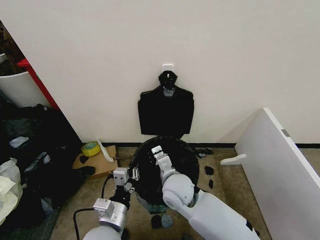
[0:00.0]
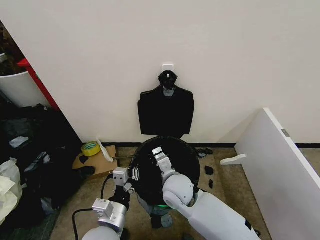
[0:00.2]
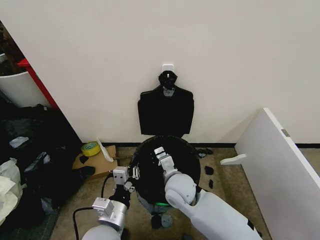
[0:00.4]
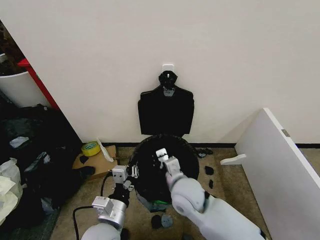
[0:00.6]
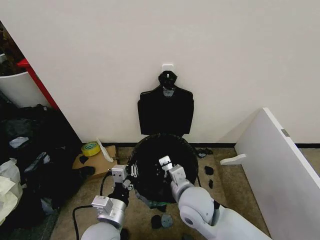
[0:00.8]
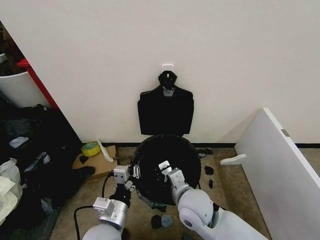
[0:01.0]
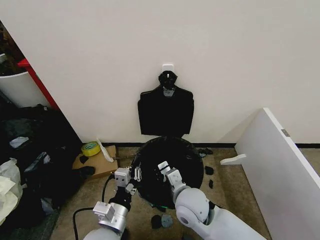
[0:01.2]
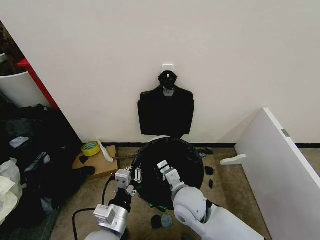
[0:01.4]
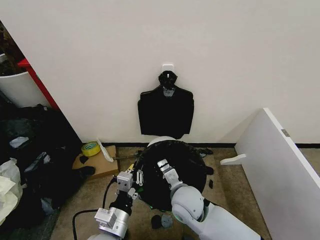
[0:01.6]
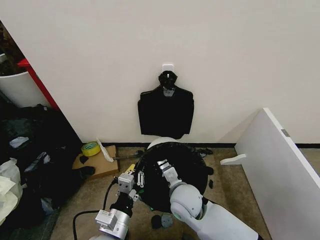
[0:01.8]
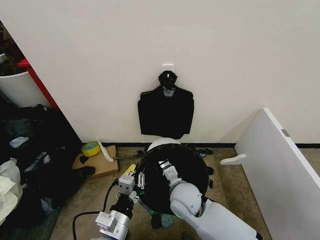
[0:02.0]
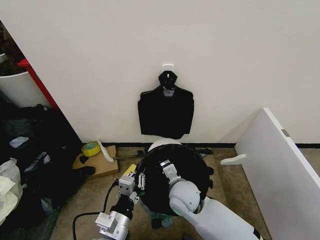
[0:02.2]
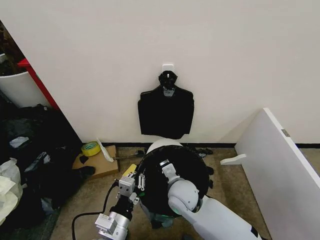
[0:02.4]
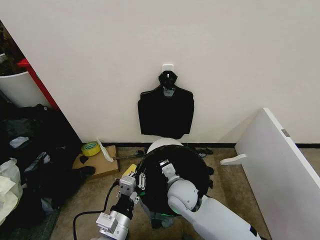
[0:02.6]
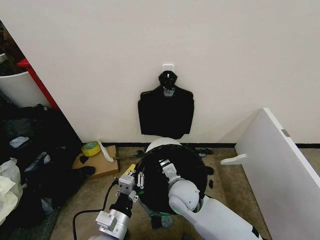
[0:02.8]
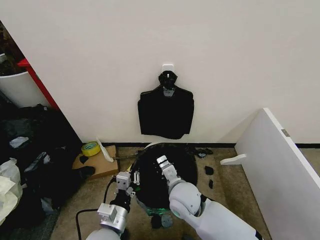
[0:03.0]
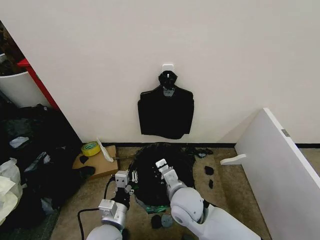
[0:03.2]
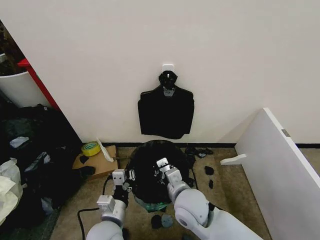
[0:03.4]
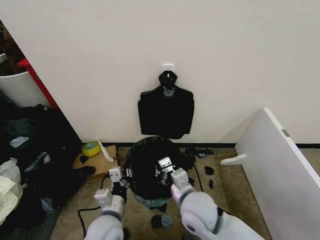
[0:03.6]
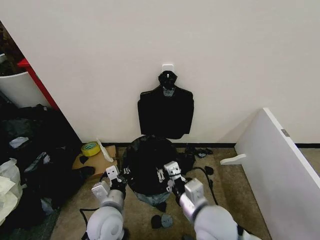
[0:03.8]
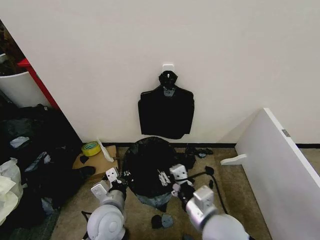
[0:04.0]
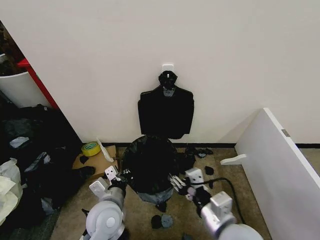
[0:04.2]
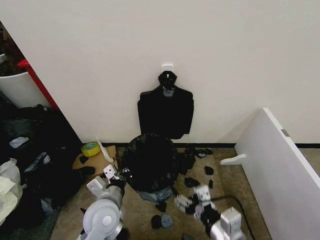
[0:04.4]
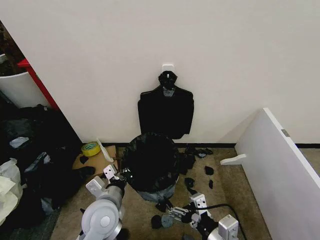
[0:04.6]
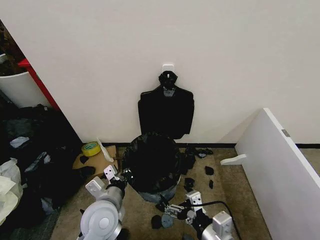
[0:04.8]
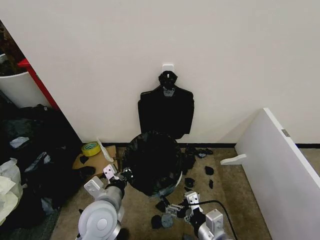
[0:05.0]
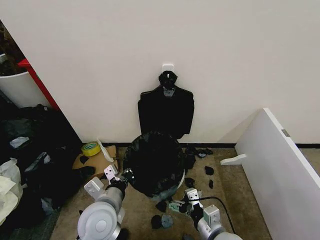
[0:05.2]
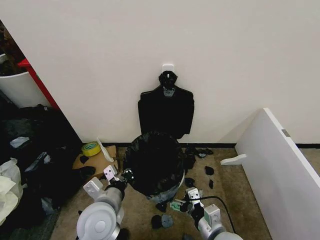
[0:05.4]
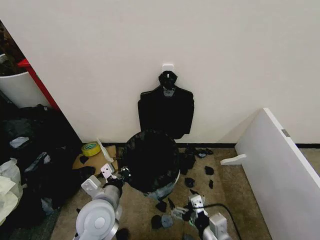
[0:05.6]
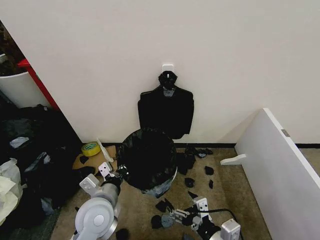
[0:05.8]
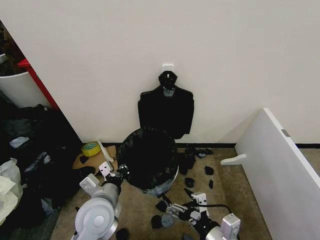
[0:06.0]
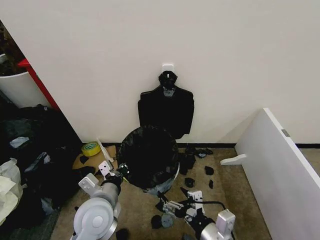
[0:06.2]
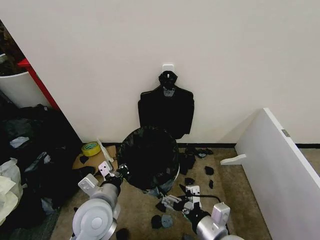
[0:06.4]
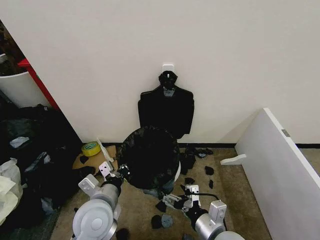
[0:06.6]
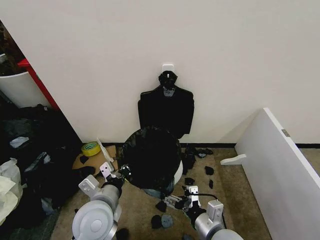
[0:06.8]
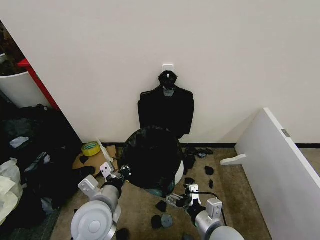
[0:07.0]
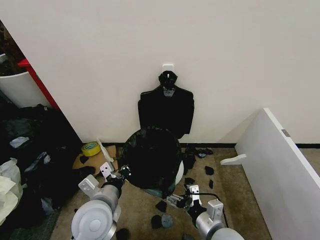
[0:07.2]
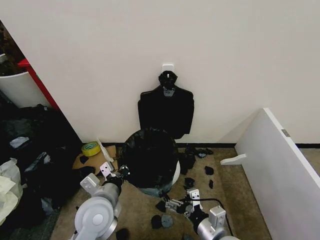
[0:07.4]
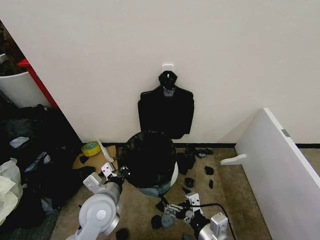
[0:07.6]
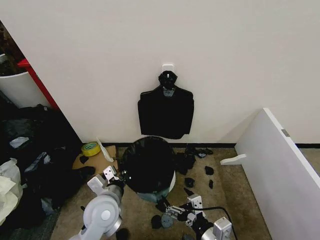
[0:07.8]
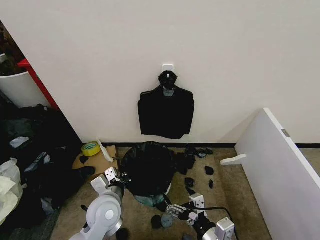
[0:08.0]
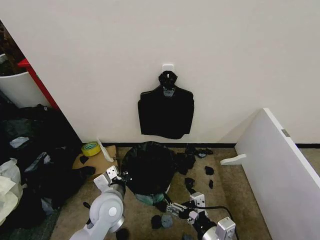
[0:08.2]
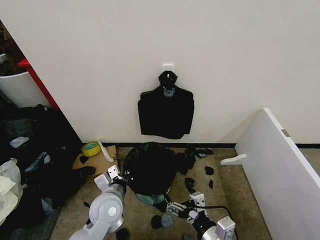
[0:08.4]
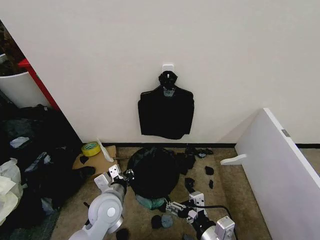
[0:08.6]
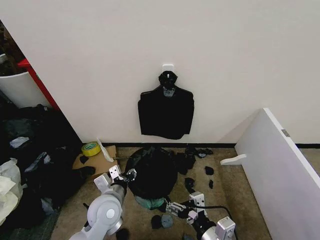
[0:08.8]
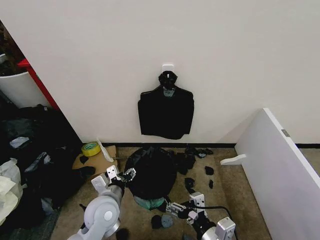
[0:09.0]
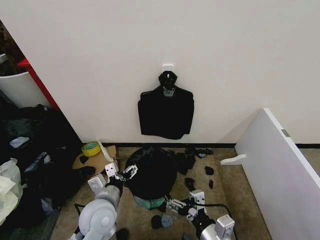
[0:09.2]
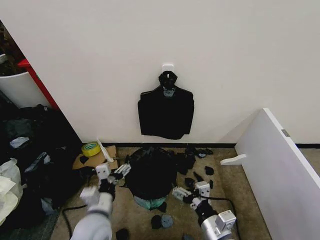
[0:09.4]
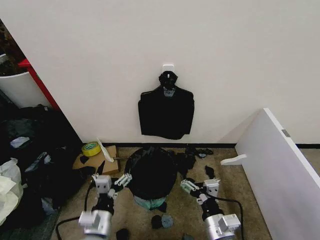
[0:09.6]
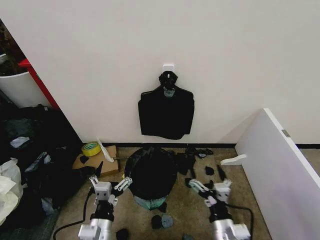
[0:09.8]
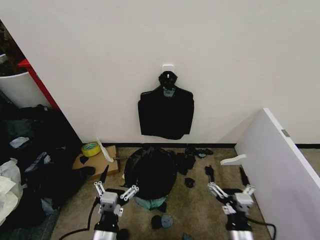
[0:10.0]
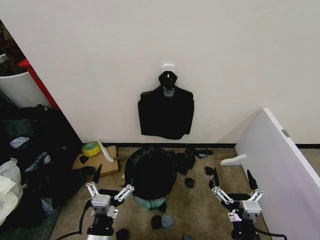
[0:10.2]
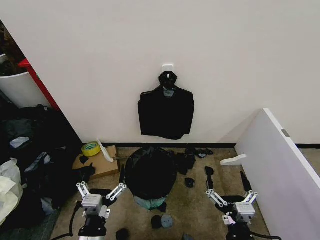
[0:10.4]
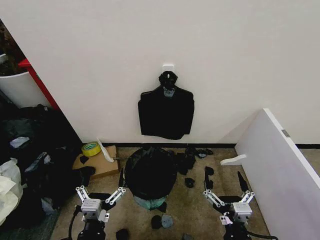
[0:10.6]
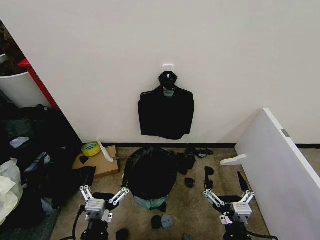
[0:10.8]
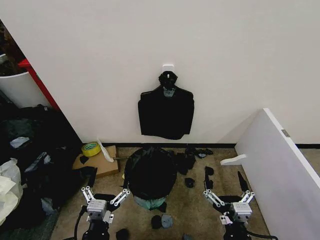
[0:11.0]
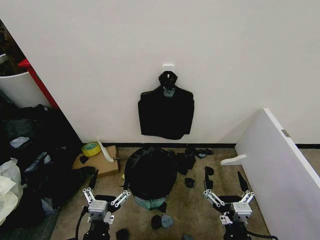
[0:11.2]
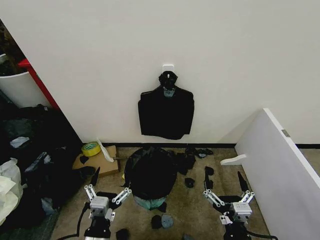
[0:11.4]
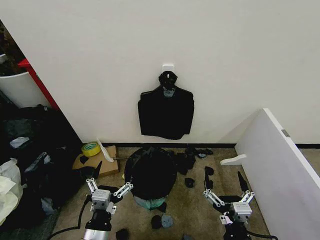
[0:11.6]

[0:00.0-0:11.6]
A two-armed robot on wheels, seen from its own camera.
Task of the whole recording: Place the garbage bag over the trash bin.
0:00.0 to 0:01.4: The right gripper moves some 5 cm.
0:01.4 to 0:02.8: There are only small adjustments of the grippers.
0:02.8 to 0:04.4: The right gripper travels backward and to the right by about 20 cm, and opens its fingers, while the left gripper moves forward, roughly 10 cm.
0:04.4 to 0:05.8: The right gripper moves downward, about 5 cm.
0:05.8 to 0:07.2: The right gripper goes roughly 5 cm forward.
0:07.2 to 0:08.8: The right gripper shifts by roughly 5 cm. The left gripper is displaced downward by approximately 5 cm, and opens its fingers.
0:08.8 to 0:10.2: The left gripper moves backward, about 15 cm, and opens up, while the right gripper changes place by roughly 5 cm.
0:10.2 to 0:11.6: There are only small adjustments of the grippers.

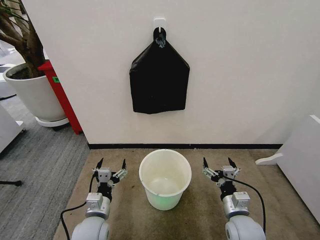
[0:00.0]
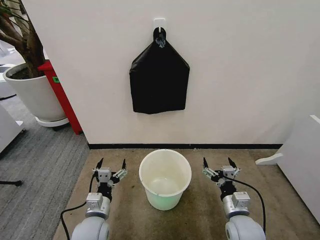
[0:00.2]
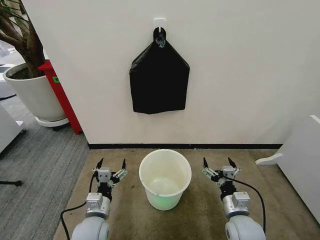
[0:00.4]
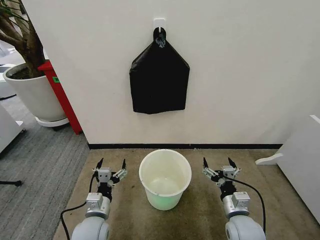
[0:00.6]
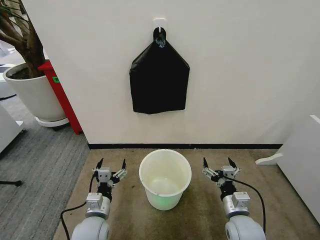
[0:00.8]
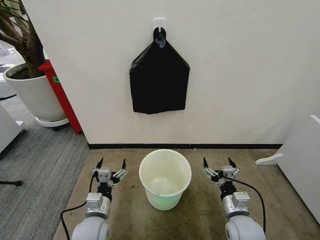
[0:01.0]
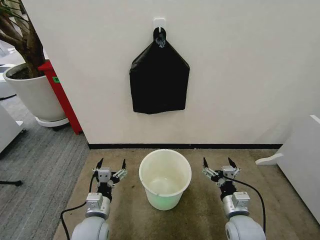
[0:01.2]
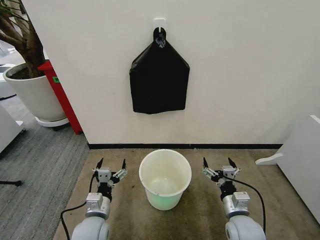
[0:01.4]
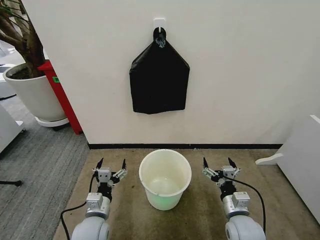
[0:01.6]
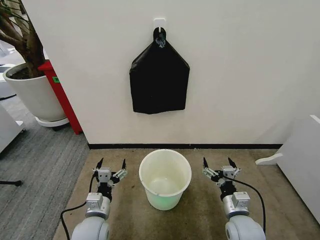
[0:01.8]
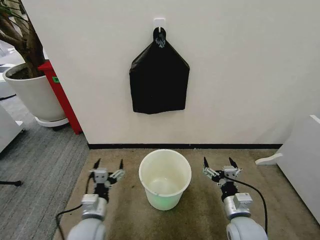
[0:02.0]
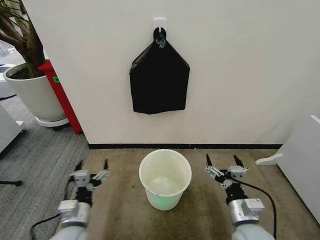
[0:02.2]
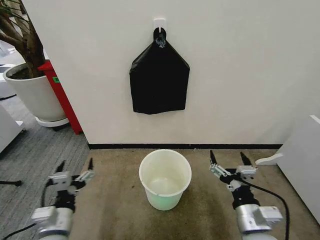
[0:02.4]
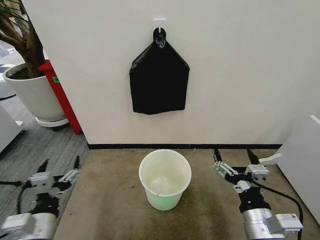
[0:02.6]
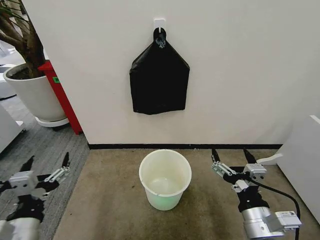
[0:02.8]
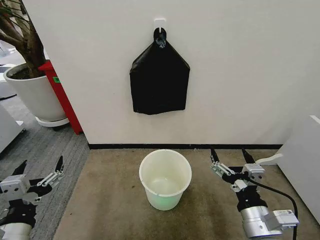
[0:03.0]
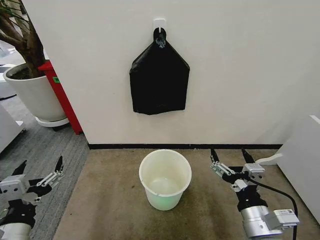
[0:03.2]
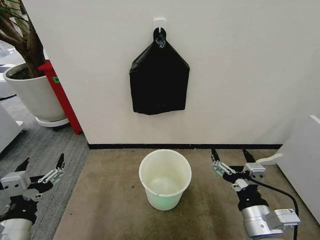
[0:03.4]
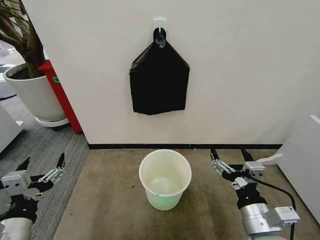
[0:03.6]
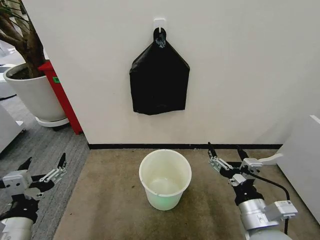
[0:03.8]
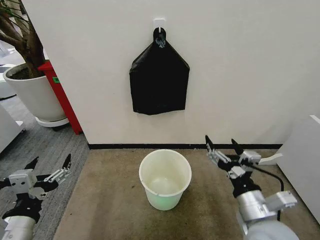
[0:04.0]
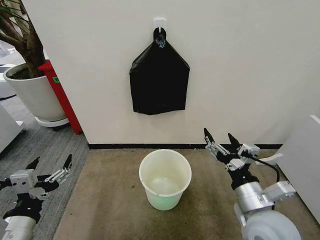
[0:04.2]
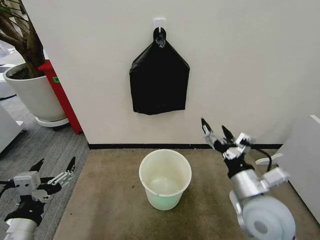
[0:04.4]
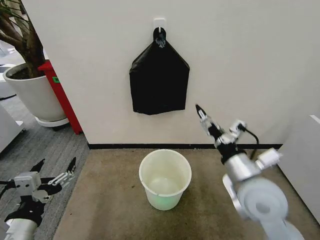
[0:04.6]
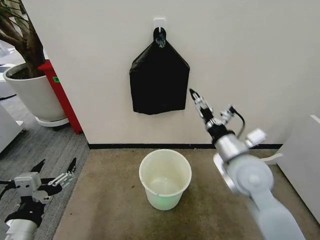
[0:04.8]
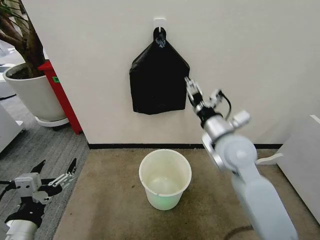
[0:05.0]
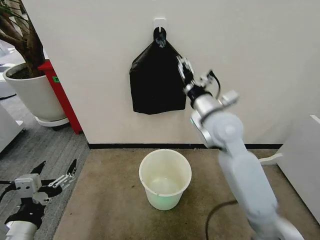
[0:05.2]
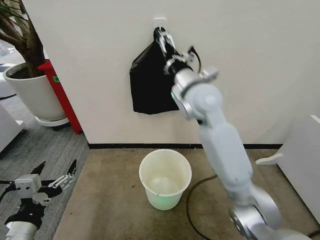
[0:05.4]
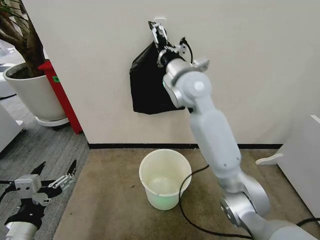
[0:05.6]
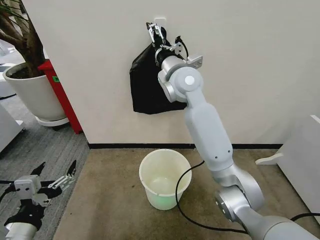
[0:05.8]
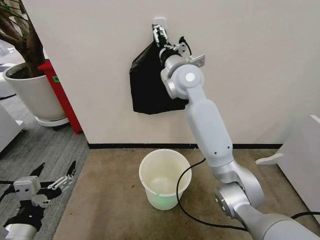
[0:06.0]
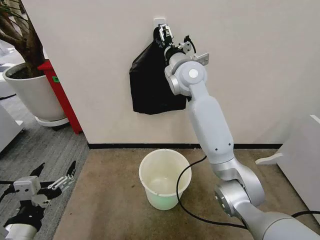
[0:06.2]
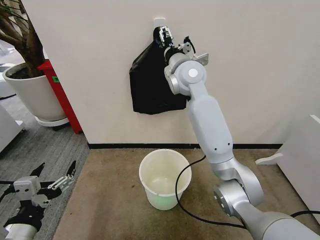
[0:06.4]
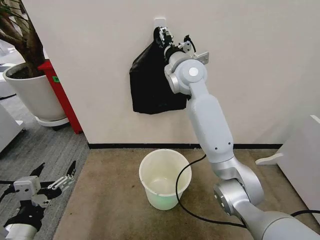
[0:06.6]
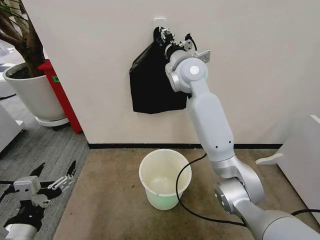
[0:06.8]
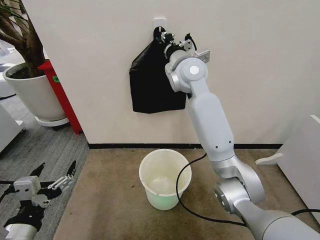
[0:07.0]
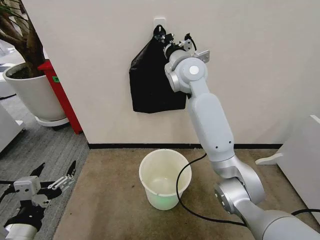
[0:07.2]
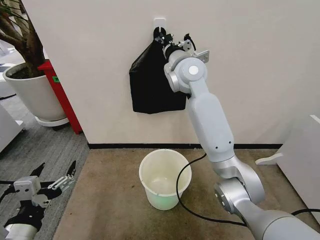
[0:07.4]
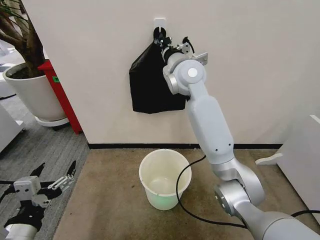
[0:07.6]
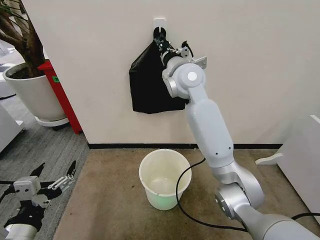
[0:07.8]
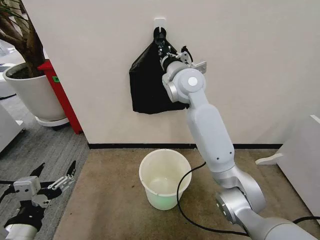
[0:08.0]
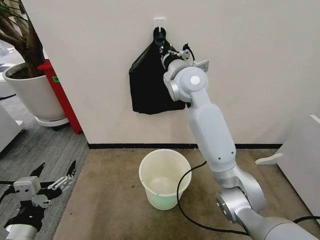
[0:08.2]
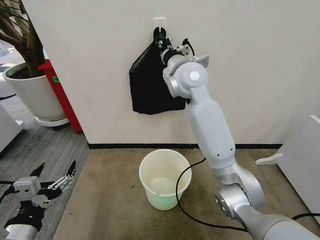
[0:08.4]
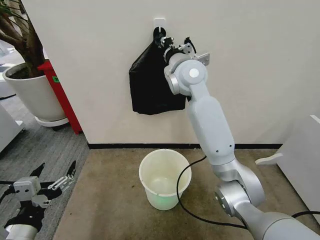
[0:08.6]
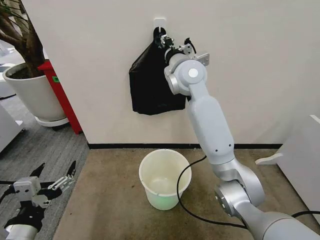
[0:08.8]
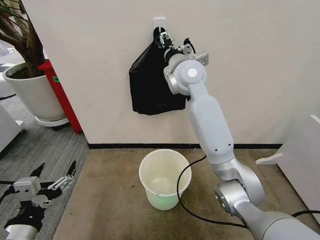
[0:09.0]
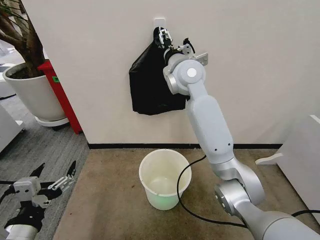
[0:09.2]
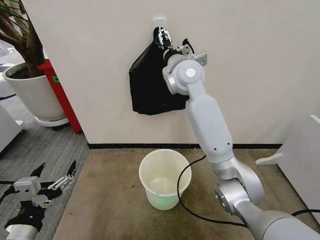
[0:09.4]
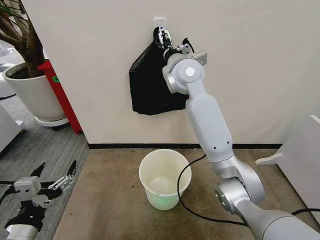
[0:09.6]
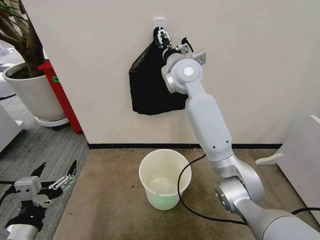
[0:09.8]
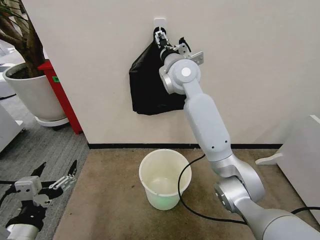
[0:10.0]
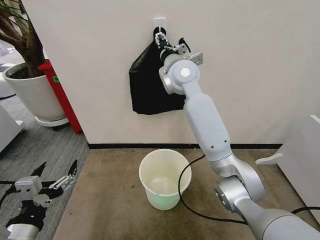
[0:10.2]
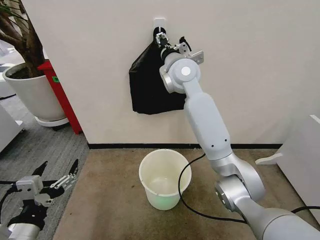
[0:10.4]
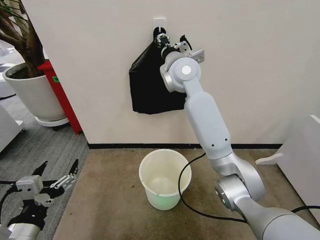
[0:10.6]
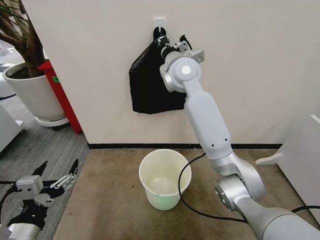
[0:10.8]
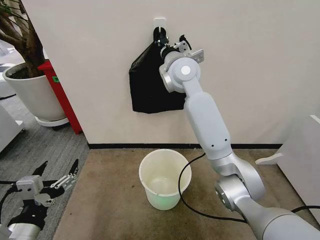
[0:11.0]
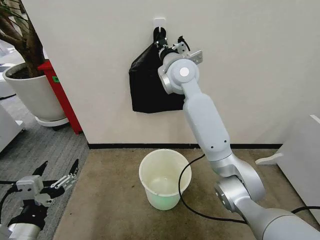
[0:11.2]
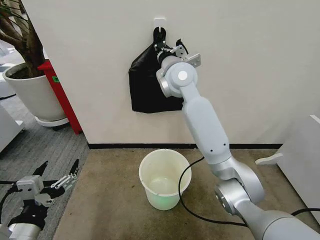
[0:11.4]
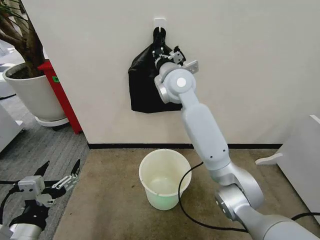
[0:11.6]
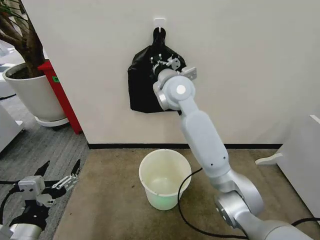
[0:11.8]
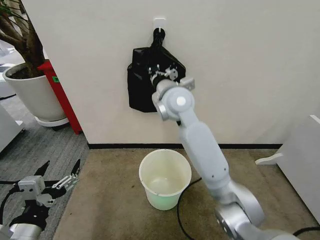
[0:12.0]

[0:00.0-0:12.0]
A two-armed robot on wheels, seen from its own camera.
Task of the whole recording: Place the garbage bag over the trash bin.
0:01.6 to 0:03.0: The left gripper travels upward, backward and to the left by approximately 20 cm, while the right gripper moves upward and backward, some 15 cm.
0:03.0 to 0:04.4: The right gripper shifts approximately 10 cm forward.
0:04.4 to 0:06.0: The right gripper travels forward, upward and to the left by approximately 40 cm.
0:06.0 to 0:07.6: The right gripper closes its fingers.
0:07.6 to 0:09.0: The right gripper opens.
0:09.0 to 0:10.4: There are only small adjustments of the grippers.
0:10.4 to 0:12.0: The right gripper travels backward and downward by some 10 cm, and closes up.
